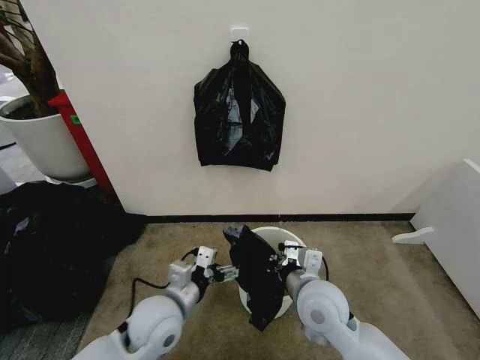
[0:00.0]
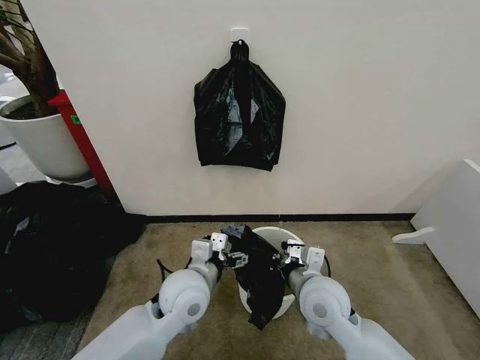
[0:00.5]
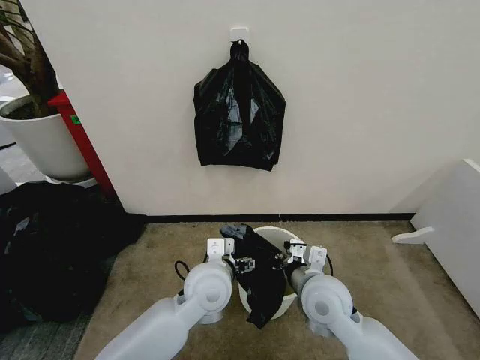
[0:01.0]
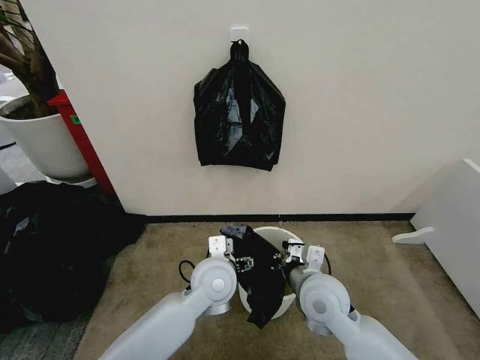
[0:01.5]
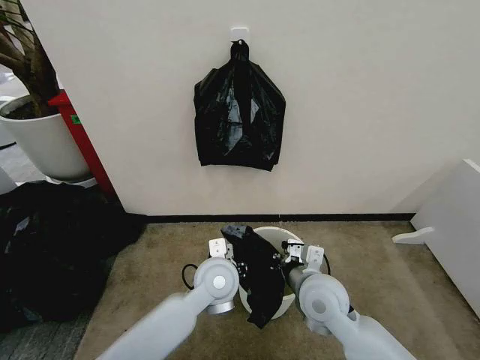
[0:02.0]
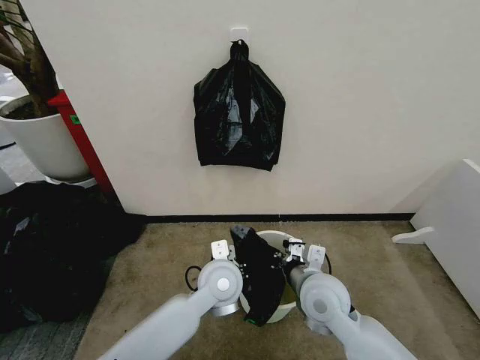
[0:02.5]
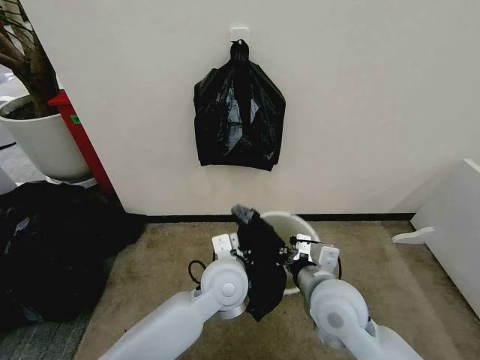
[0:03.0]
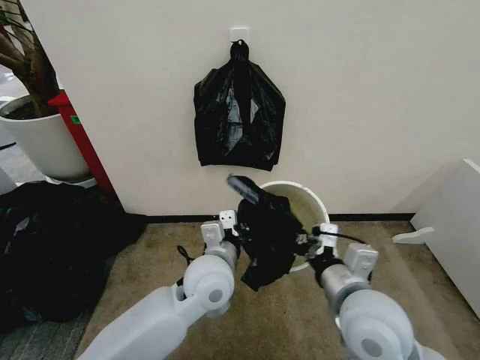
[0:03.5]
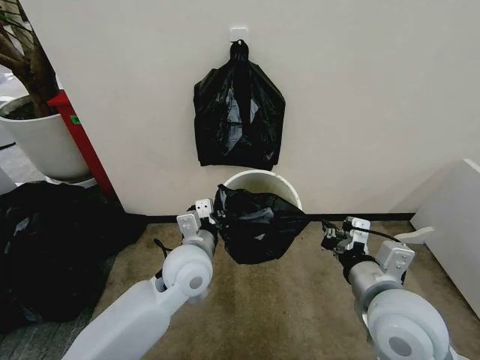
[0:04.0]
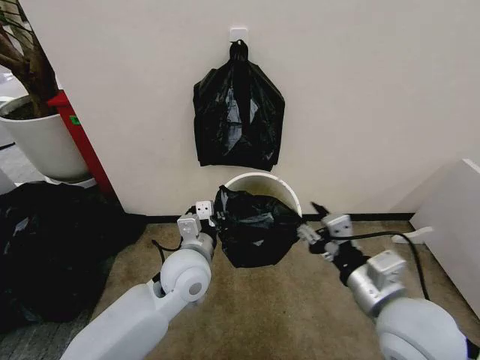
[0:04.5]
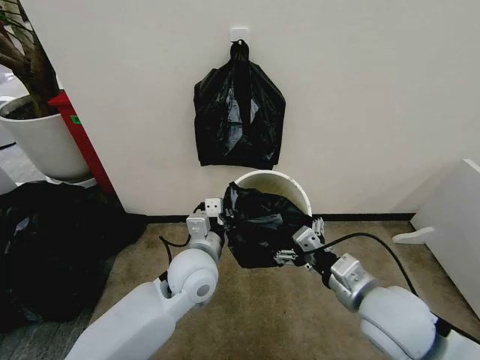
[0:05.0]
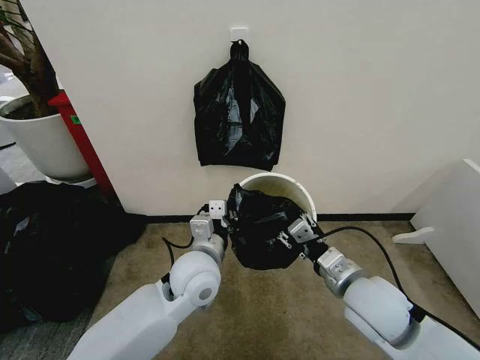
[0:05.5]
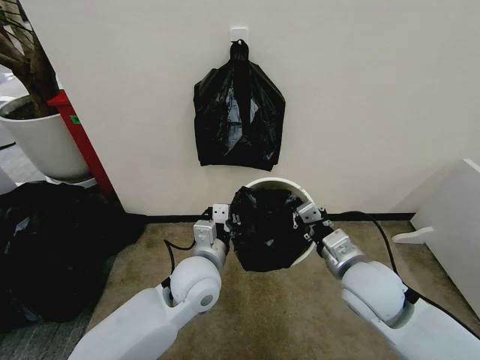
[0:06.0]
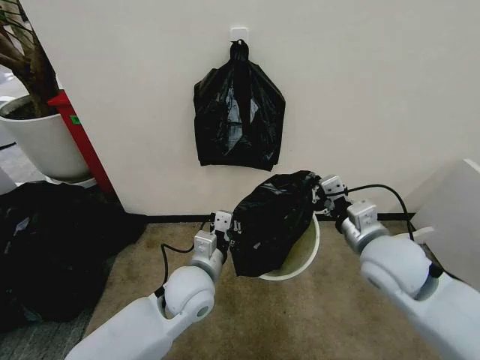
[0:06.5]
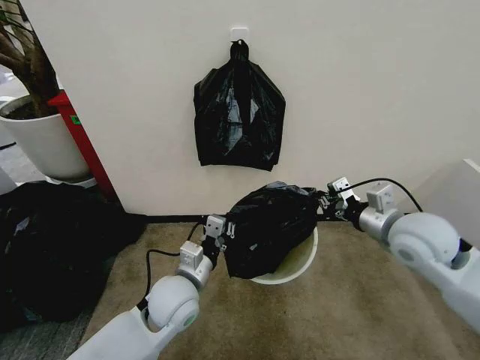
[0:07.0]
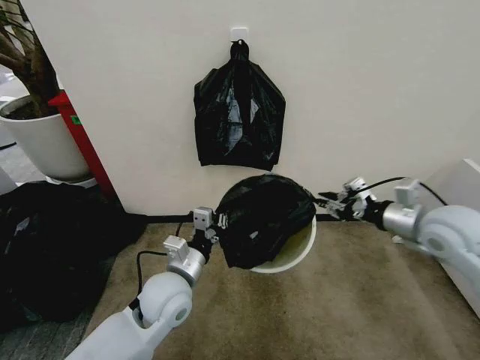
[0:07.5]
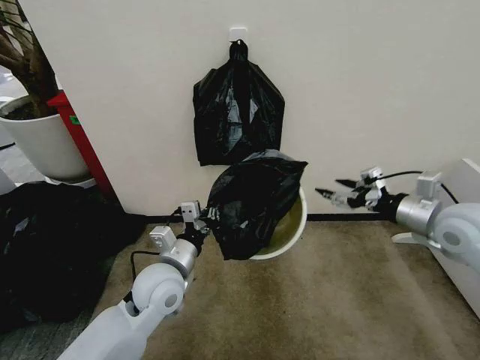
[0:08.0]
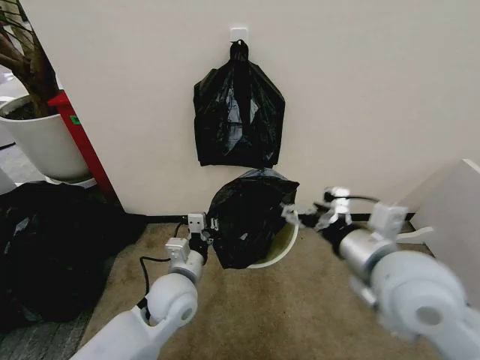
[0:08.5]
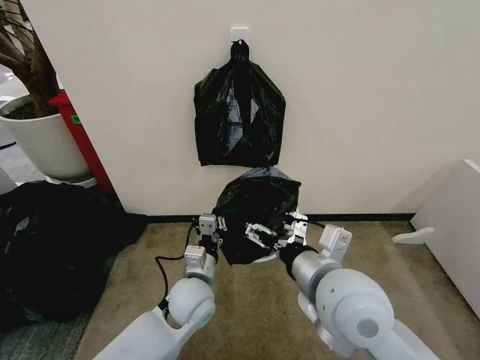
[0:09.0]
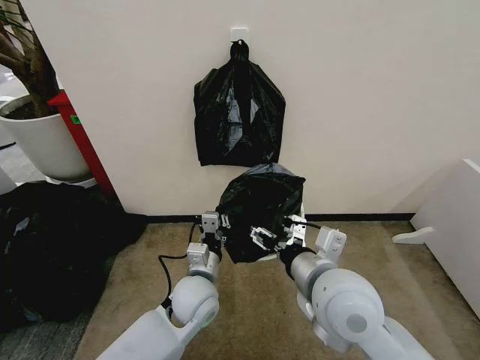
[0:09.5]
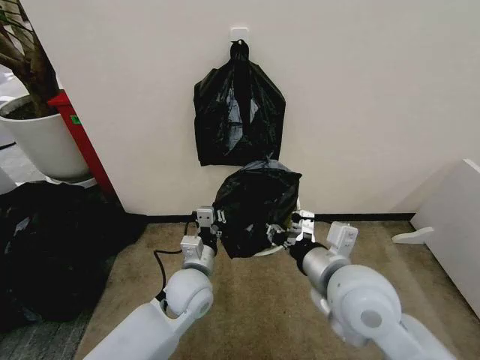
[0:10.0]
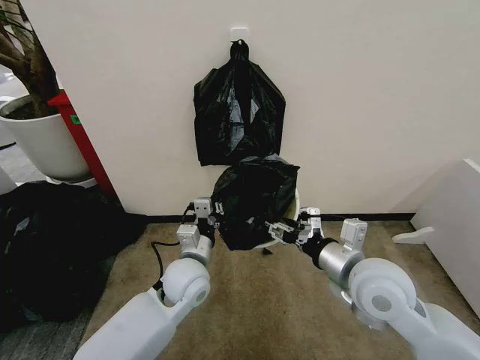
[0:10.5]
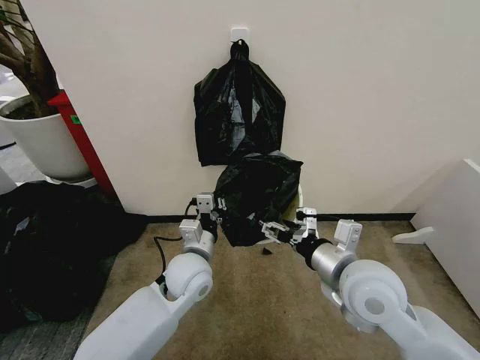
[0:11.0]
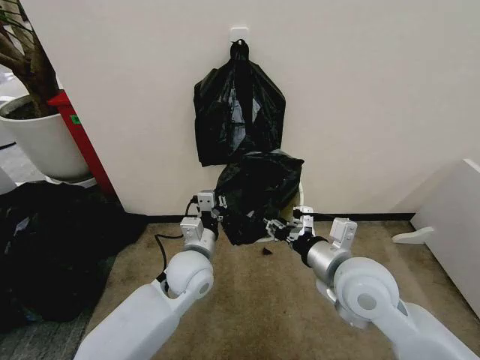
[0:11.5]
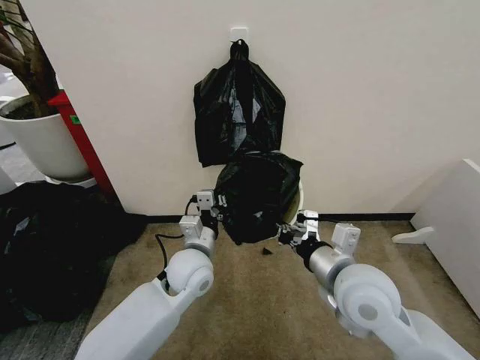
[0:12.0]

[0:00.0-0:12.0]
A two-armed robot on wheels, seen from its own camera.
Task of the whole recording: Place the garbage bag over the trash bin.
0:00.0 to 0:02.0: The left gripper goes about 15 cm to the right and forward, and closes up.
0:02.0 to 0:04.0: The right gripper is displaced upward, backward and to the right by some 15 cm. Meanwhile the left gripper moves to the left, about 5 cm, and closes up.
0:04.0 to 0:06.0: The right gripper travels forward by some 5 cm, and opens and closes again.
0:06.0 to 0:08.0: The left gripper travels to the left by some 5 cm. The right gripper travels to the right, upward and forward by approximately 20 cm, and opens its fingers.
0:08.0 to 0:10.0: The right gripper goes roughly 25 cm to the left and backward, and closes, while the left gripper goes about 5 cm to the right.
0:10.0 to 0:12.0: The right gripper opens, then closes once more.

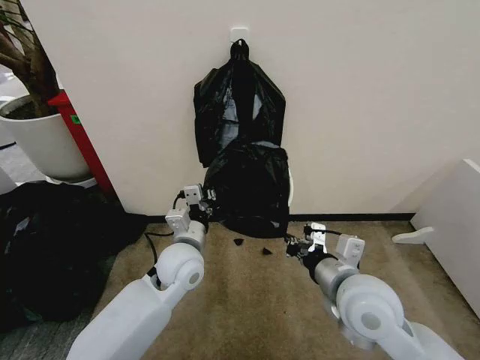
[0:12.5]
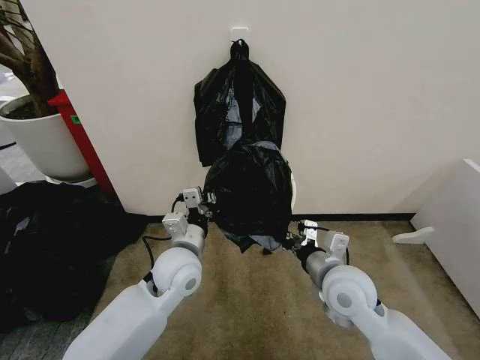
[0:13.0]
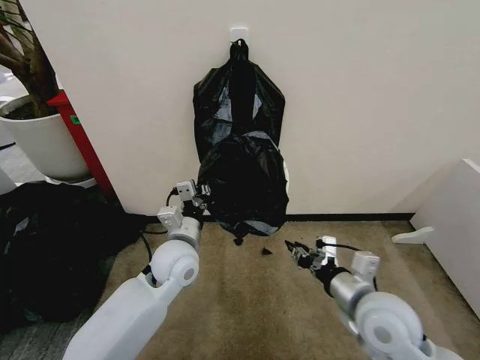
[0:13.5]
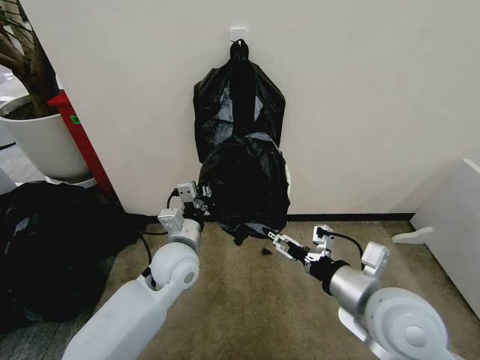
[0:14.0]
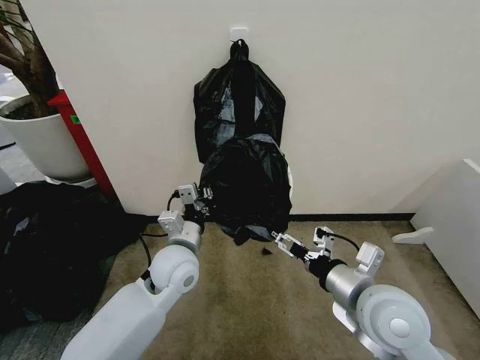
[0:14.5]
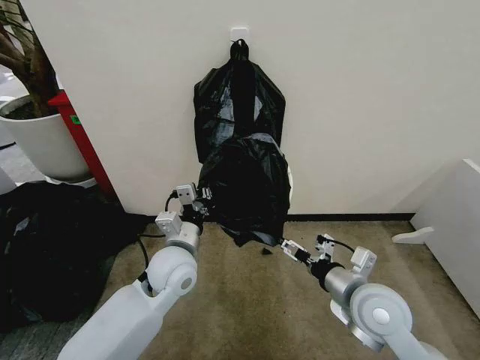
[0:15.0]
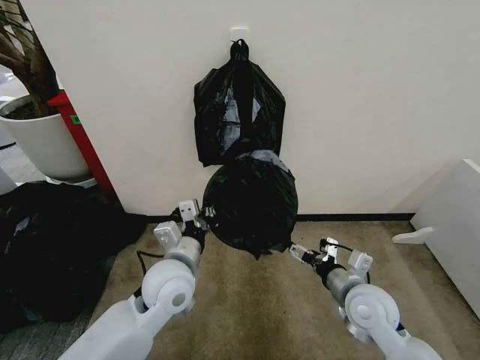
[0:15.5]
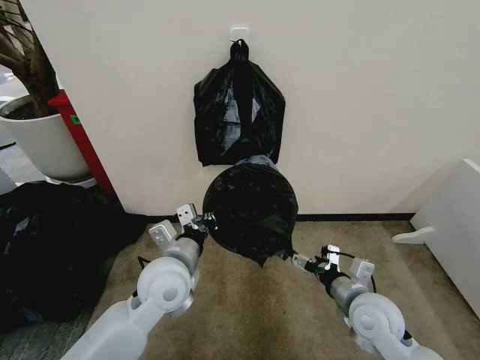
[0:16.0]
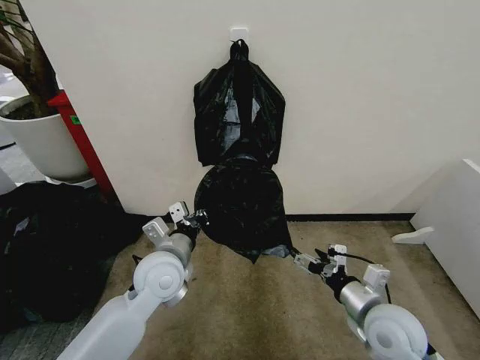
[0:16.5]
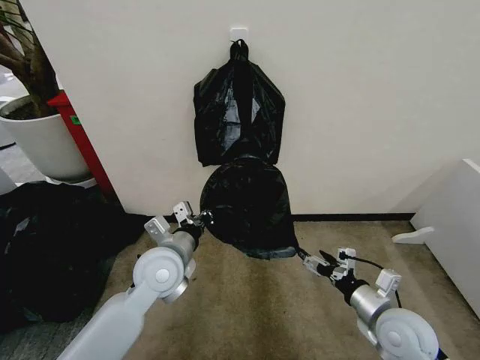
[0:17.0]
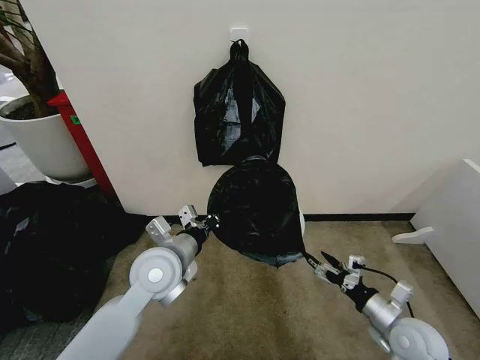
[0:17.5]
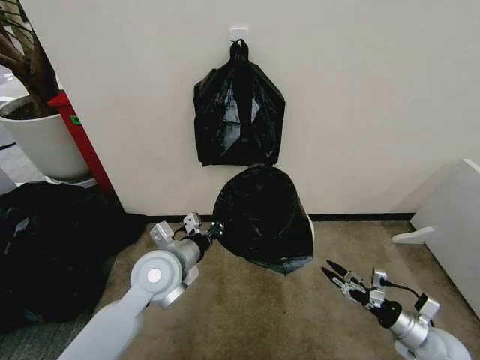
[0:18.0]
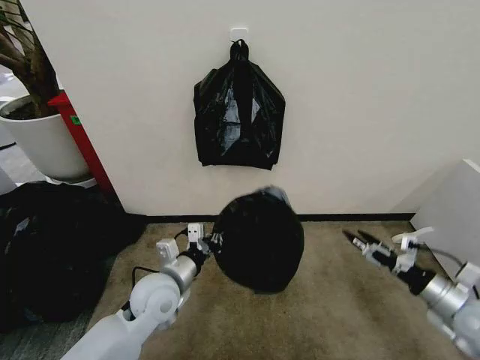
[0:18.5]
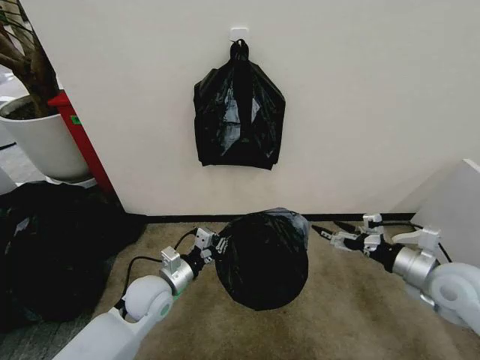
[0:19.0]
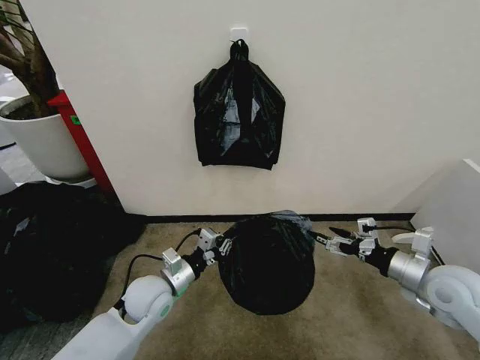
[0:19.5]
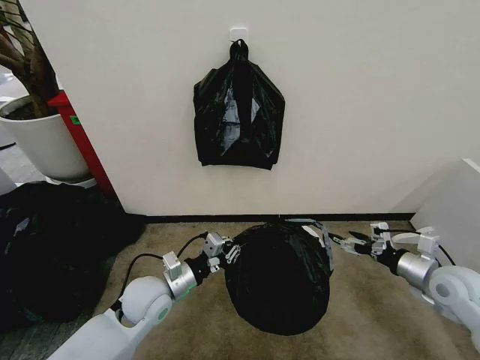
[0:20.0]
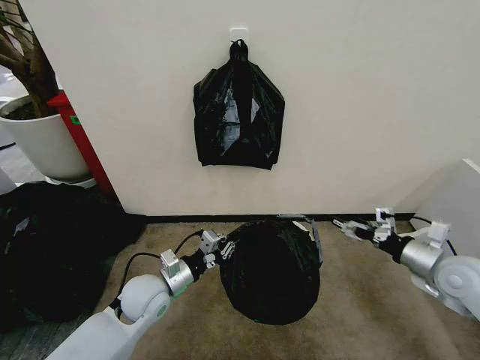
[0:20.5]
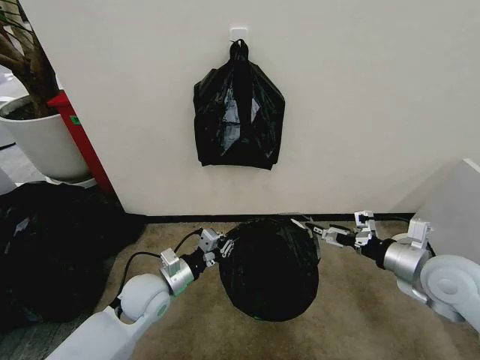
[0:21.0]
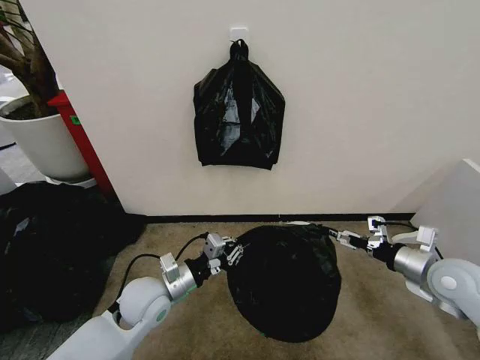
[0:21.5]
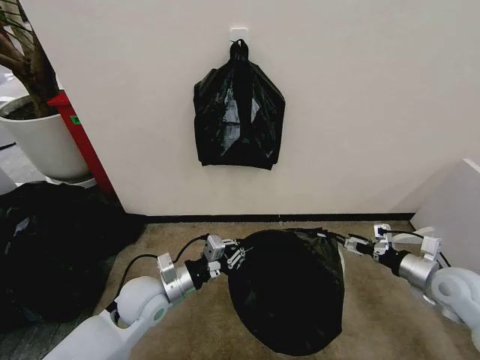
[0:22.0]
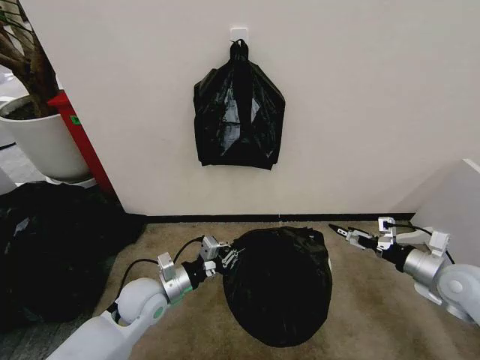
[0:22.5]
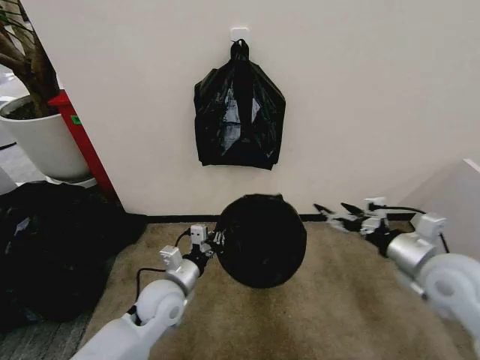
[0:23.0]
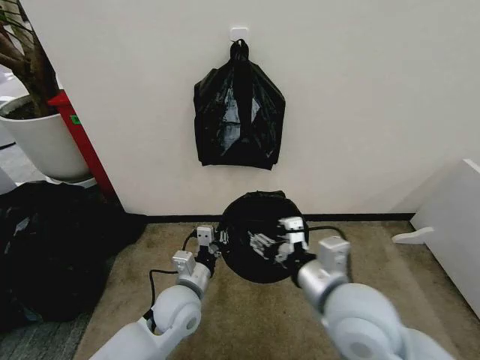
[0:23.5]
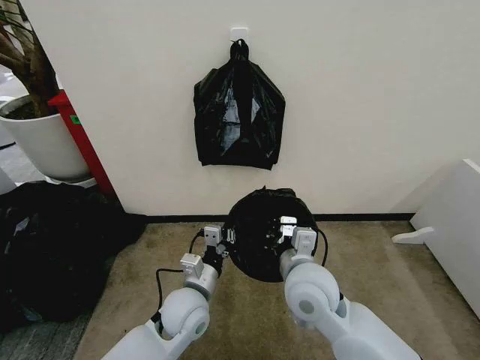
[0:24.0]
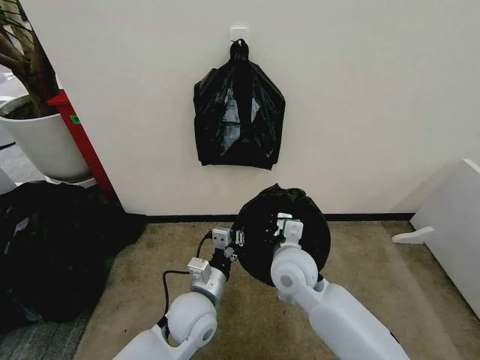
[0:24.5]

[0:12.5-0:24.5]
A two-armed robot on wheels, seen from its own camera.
Task of the whole recording: Place the garbage bag over the trash bin.
0:12.5 to 0:14.5: The right gripper opens up.
0:14.5 to 0:16.5: The right gripper shifts about 10 cm downward and to the right.
0:16.5 to 0:18.5: The left gripper is displaced downward by about 5 cm, while the right gripper moves to the right, about 20 cm.
0:18.5 to 0:20.5: The right gripper shifts some 5 cm forward.
0:20.5 to 0:22.5: The right gripper moves about 5 cm to the left and comes back.
0:22.5 to 0:24.5: The left gripper shifts about 10 cm to the right, while the right gripper goes about 35 cm to the left, and closes.

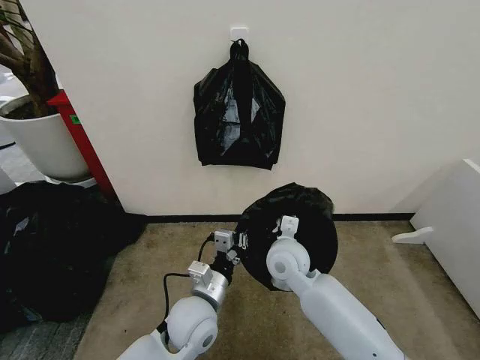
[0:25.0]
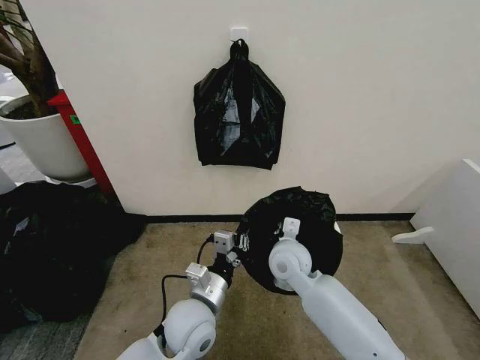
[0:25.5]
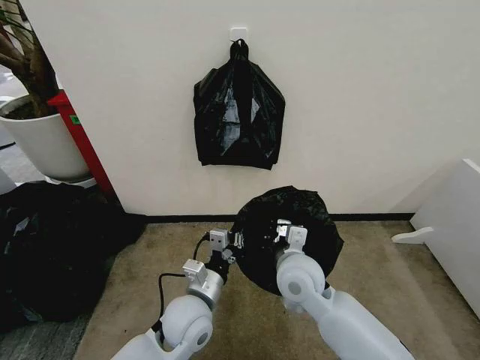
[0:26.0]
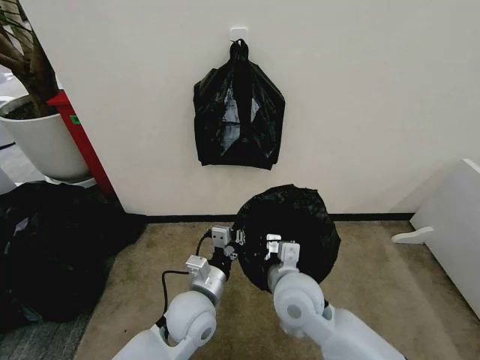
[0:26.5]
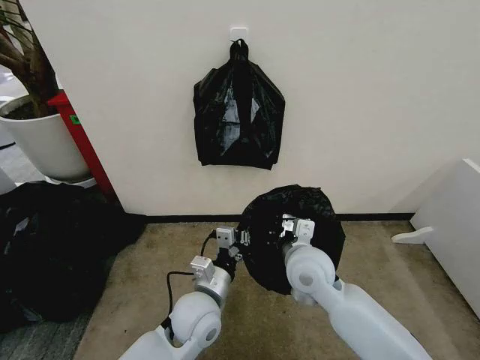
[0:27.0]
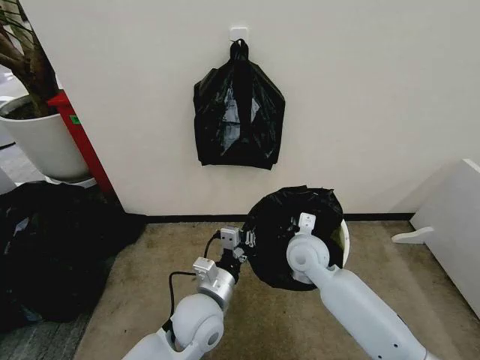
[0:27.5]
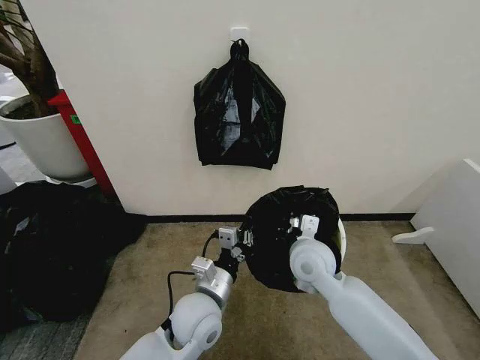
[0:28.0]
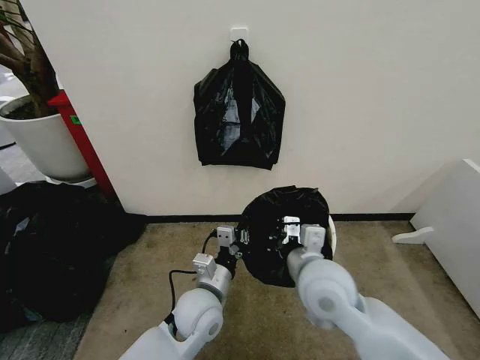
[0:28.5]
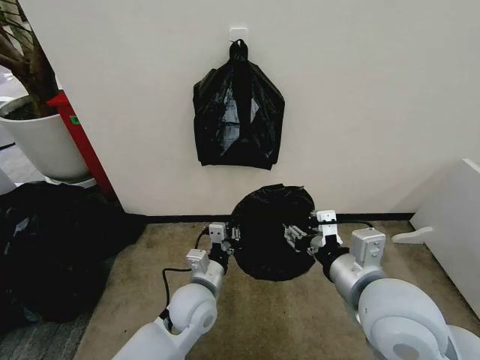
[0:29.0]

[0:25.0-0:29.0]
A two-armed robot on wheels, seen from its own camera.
Task of the whole recording: Place the garbage bag over the trash bin.
0:25.0 to 0:27.0: The right gripper changes place by approximately 5 cm.
0:27.0 to 0:29.0: The right gripper goes about 15 cm backward, upward and to the right, and opens its fingers.
